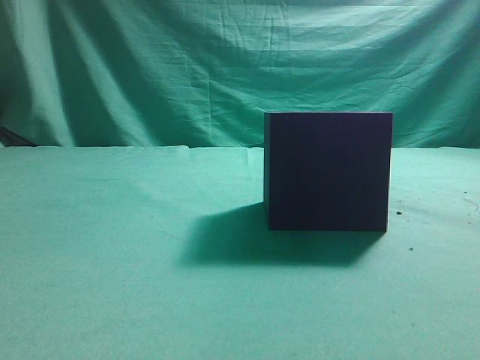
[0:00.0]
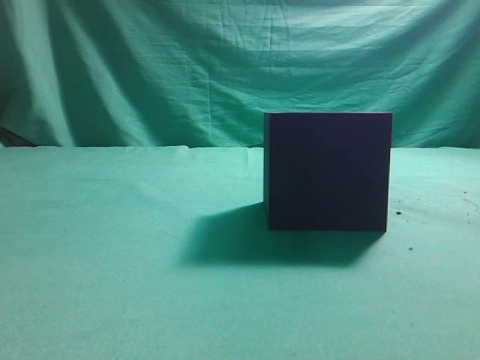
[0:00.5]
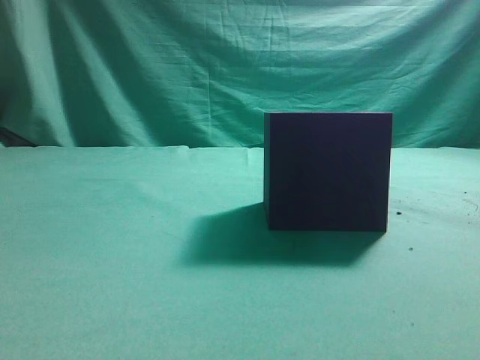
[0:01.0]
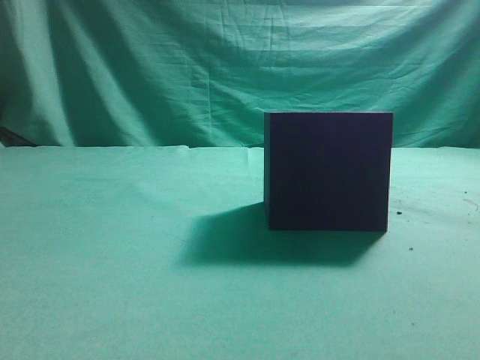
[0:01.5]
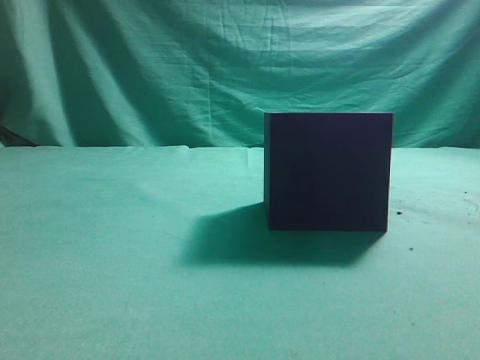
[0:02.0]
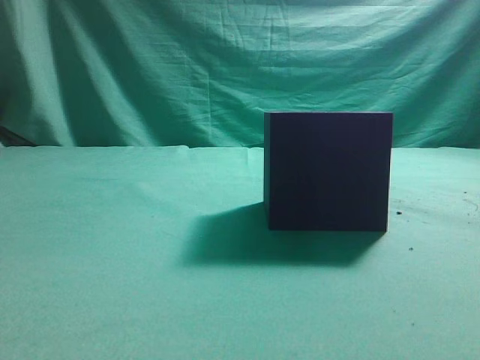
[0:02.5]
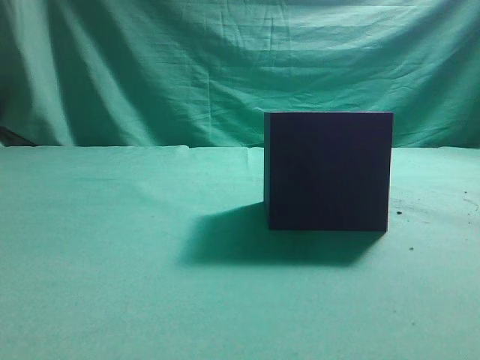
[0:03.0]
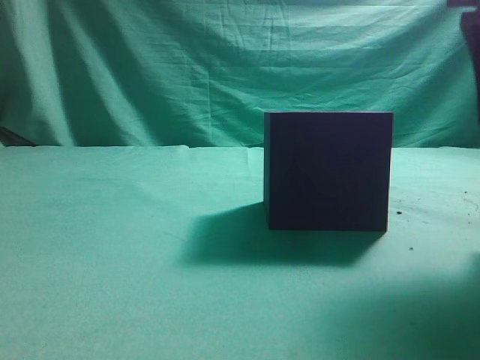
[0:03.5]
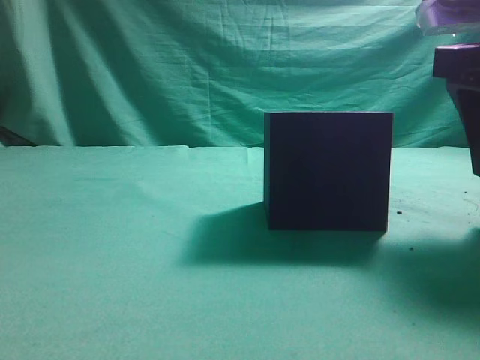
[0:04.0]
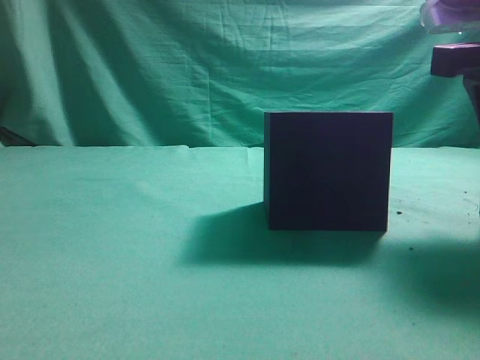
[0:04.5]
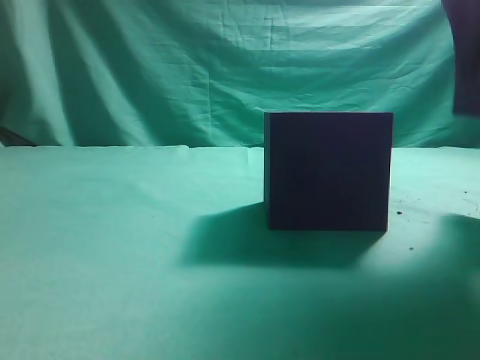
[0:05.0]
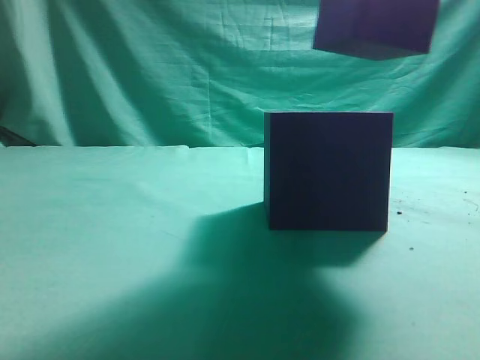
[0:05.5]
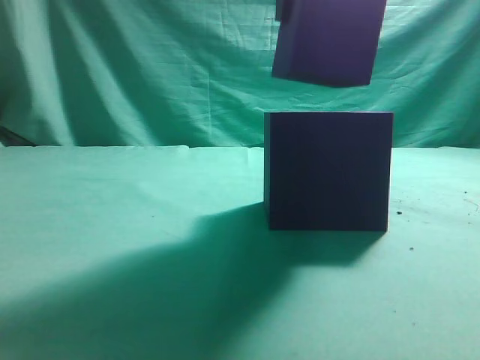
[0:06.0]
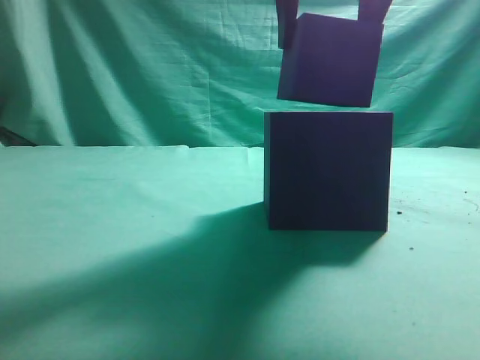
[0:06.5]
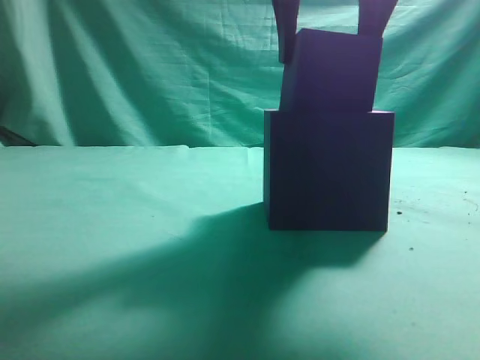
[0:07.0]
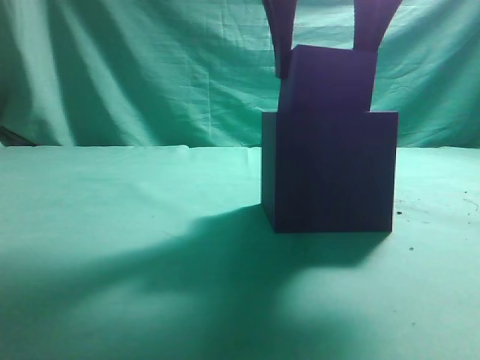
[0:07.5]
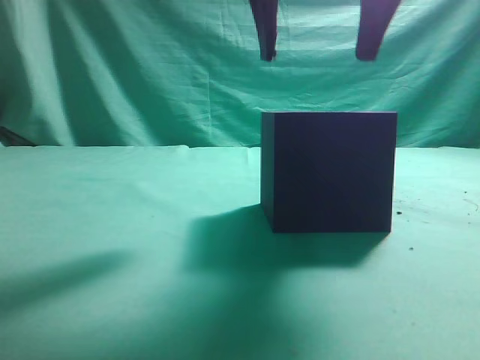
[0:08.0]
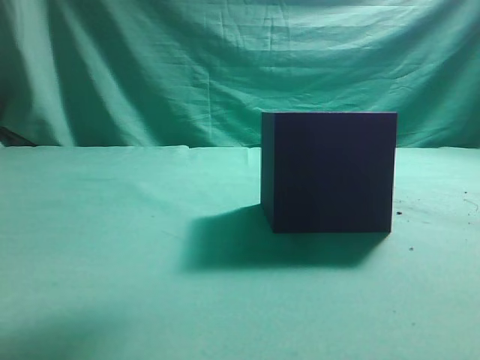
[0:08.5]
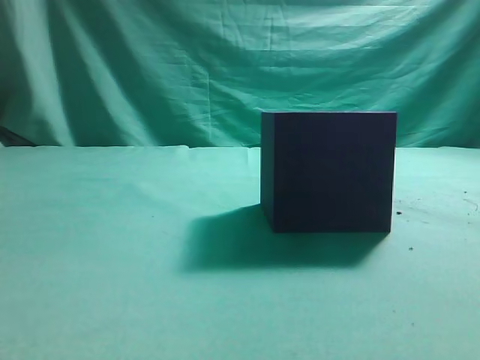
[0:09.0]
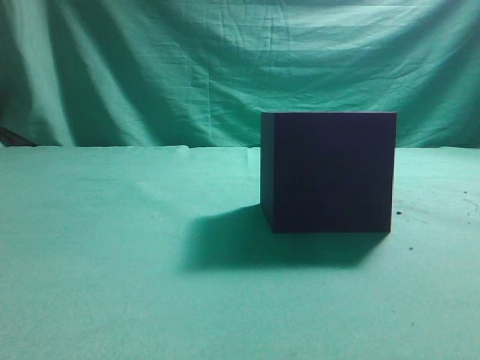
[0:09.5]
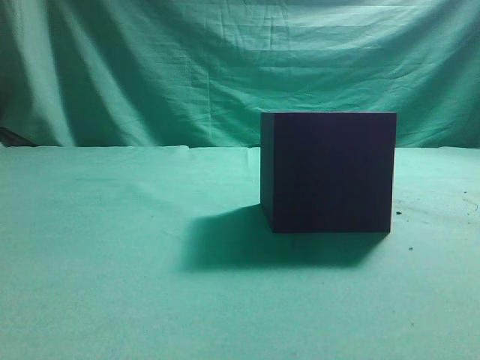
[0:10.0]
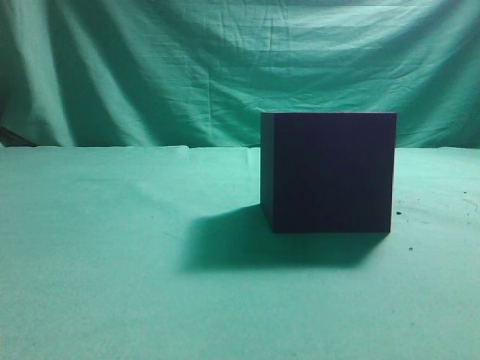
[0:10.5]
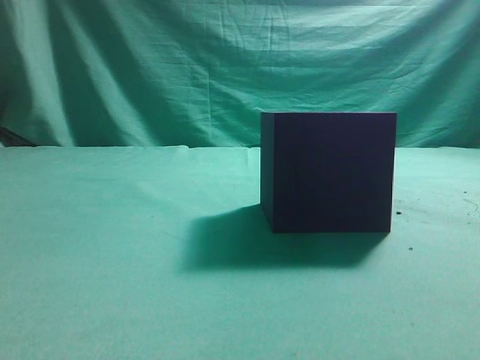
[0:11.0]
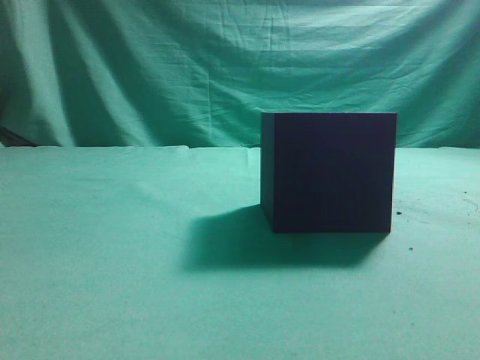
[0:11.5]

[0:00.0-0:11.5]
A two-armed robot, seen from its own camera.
Task of the whole recording: pick up the cube block and place it into the cube groove.
Step, 0:00.0 to 0:04.5: Grasp the cube.
Step, 0:05.0 to 0:08.0: Place cube into the cube-shaped recess.
0:02.0 to 0:04.0: The right gripper is displaced forward and downward by some 20 cm, and opens up.
0:04.0 to 0:06.0: The right gripper shifts approximately 15 cm to the left and upward.
0:06.0 to 0:07.5: There are only small adjustments of the grippers.
0:07.5 to 0:09.5: The right gripper travels backward, to the right and upward by roughly 25 cm, and closes its fingers.
